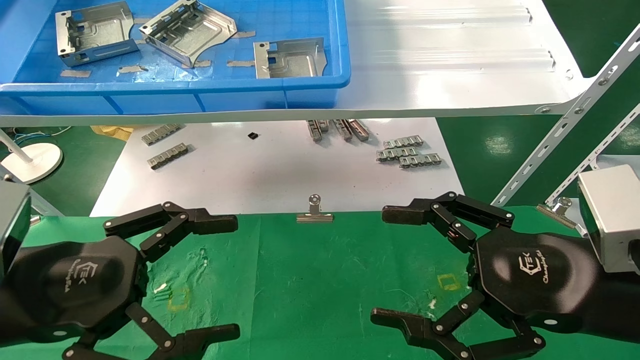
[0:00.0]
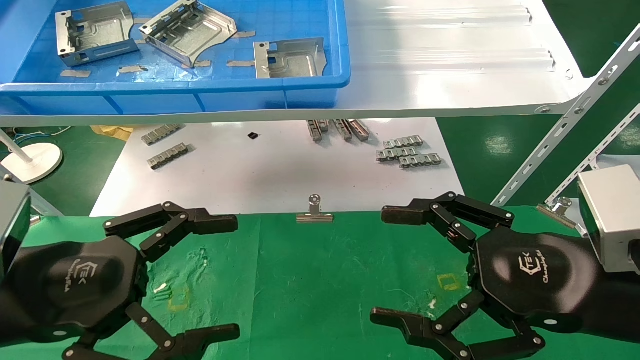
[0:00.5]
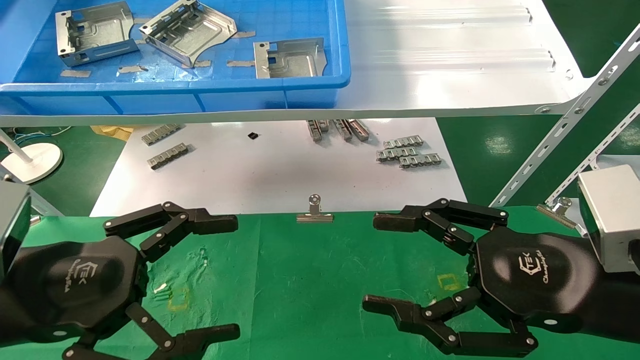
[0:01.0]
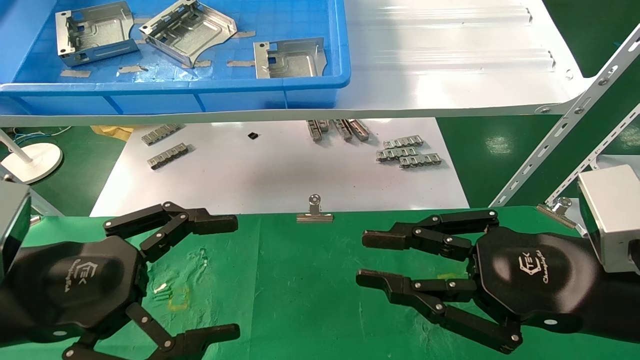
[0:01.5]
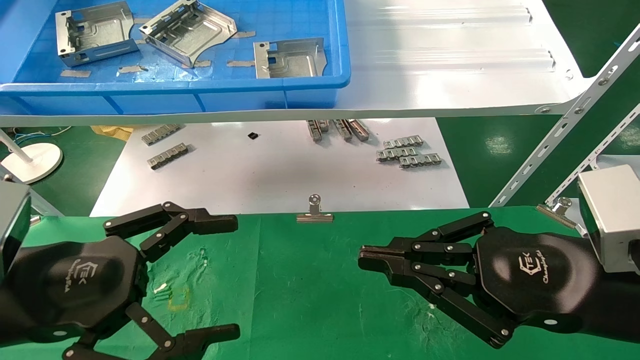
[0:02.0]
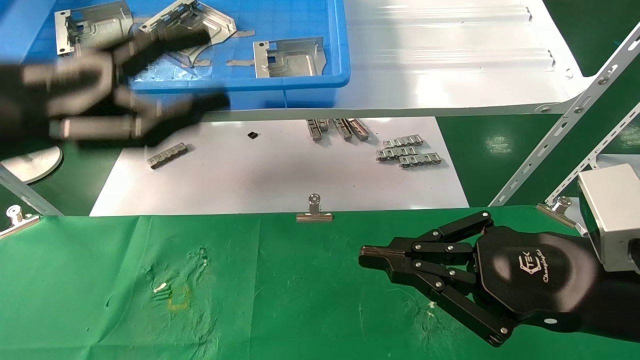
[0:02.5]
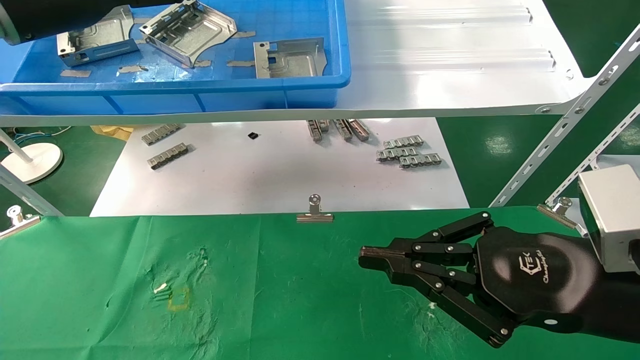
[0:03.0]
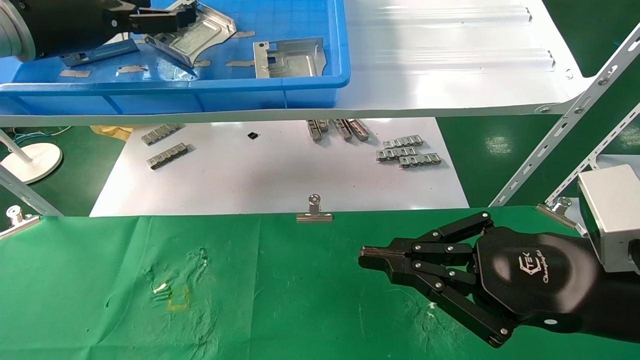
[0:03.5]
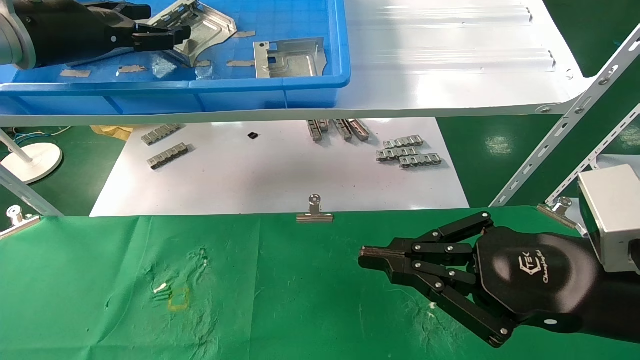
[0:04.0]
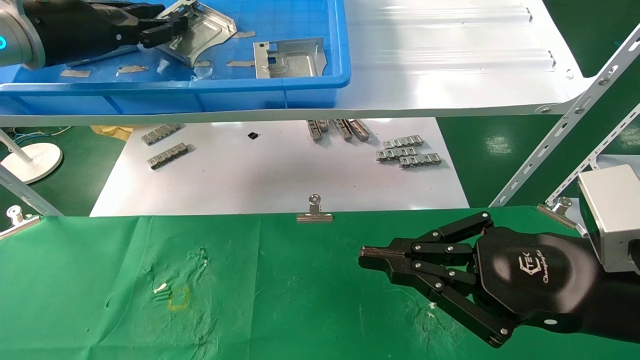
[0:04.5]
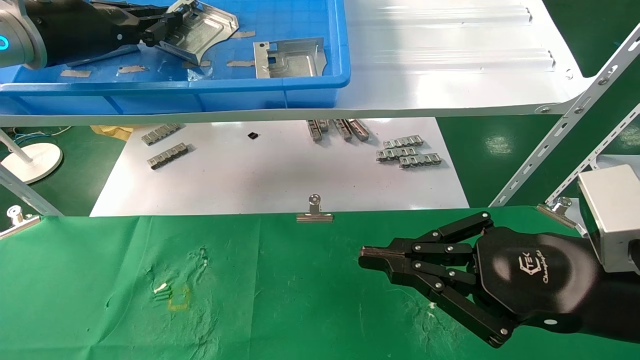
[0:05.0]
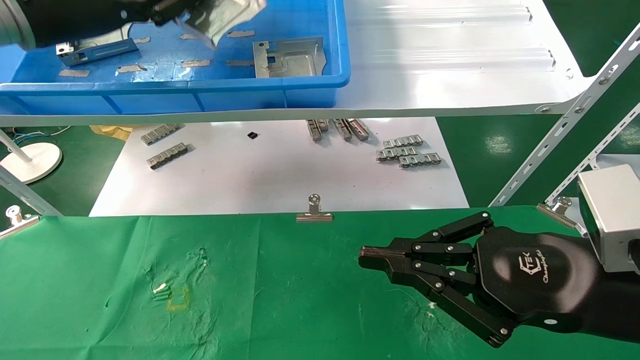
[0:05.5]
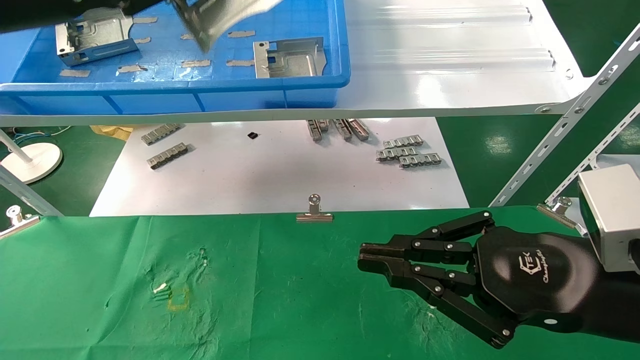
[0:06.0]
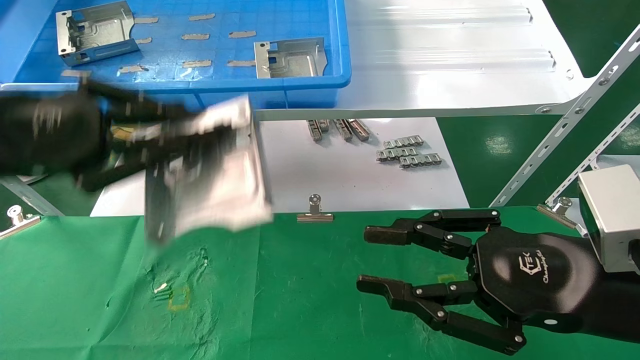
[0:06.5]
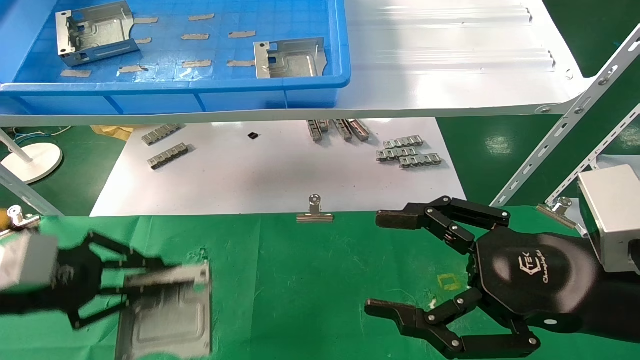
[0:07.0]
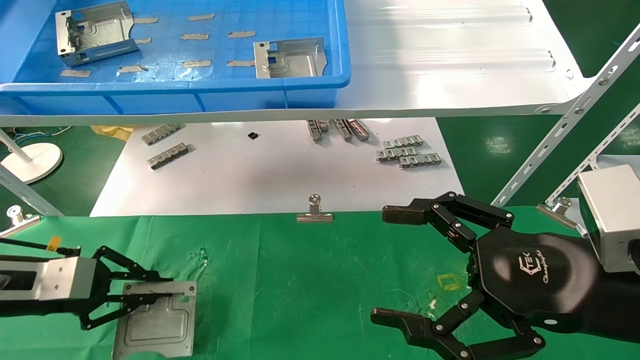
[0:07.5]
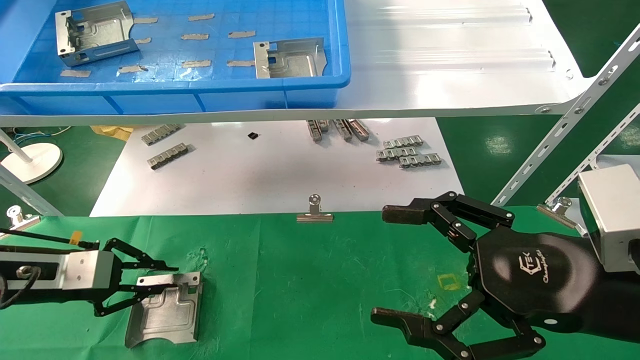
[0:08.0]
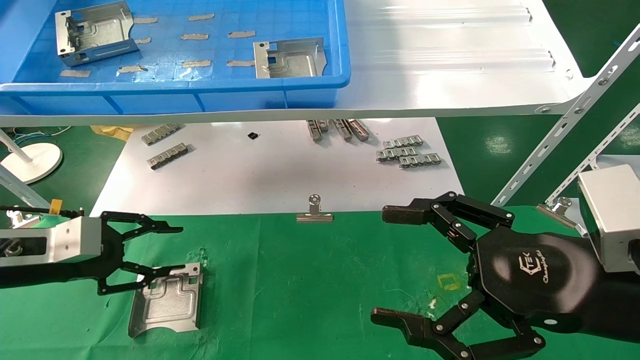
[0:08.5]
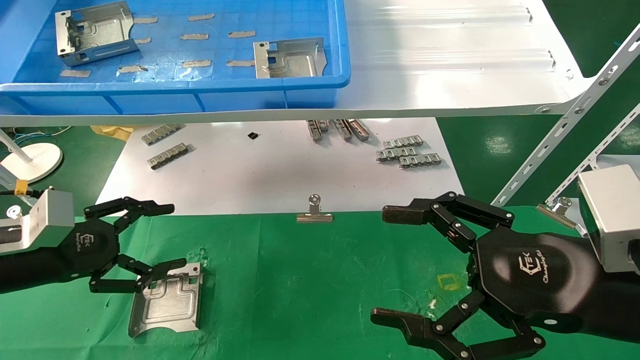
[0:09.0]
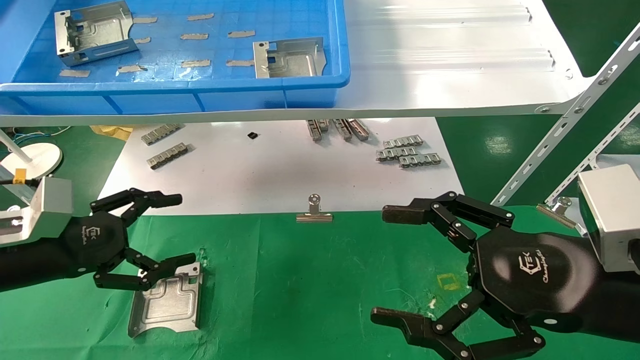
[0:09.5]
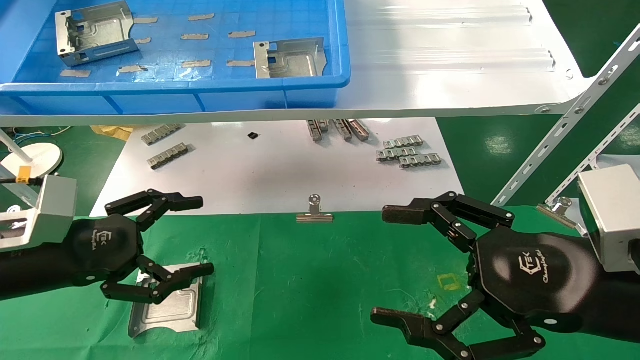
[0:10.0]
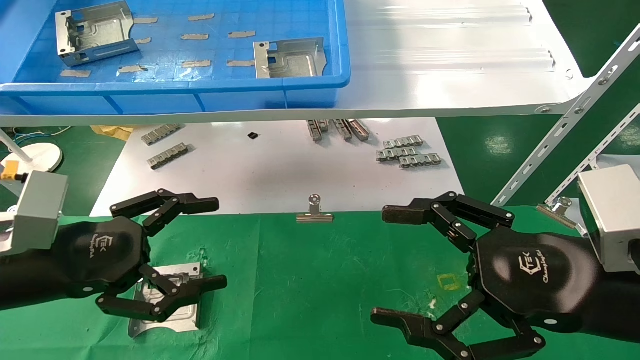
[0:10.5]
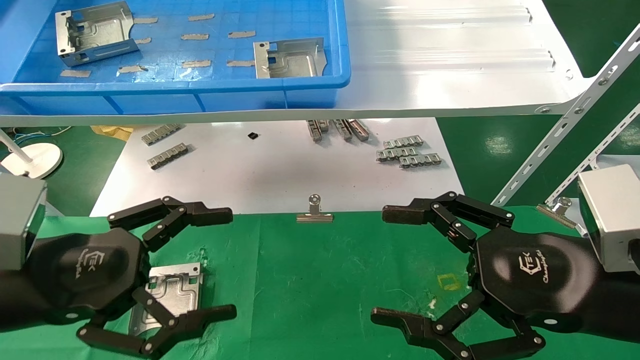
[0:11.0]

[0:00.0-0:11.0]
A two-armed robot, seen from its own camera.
Task of the whole recording: use the mechanical arm to pick up the parts and place them on the table.
Step, 0:01.5 to 0:04.0: Pick up the hard drive bracket from the feeding area.
Step, 0:04.5 to 0:07.0: Place the hard drive bracket into the box.
0:00.0 to 0:02.0: The right gripper closes its fingers.
0:02.0 to 0:03.5: The left gripper shifts about 30 cm forward and upward.
0:03.5 to 0:05.5: The left gripper closes its fingers.
0:05.5 to 0:07.5: The right gripper opens up. Meanwhile the left gripper goes about 30 cm downward.
0:07.5 to 0:09.0: The left gripper opens up.
0:09.0 to 0:11.0: The left gripper is displaced to the right and backward by some 15 cm.

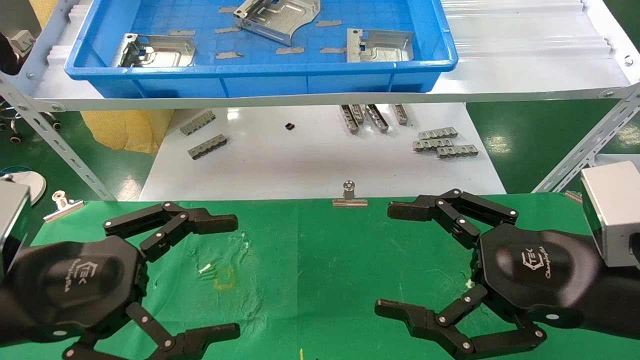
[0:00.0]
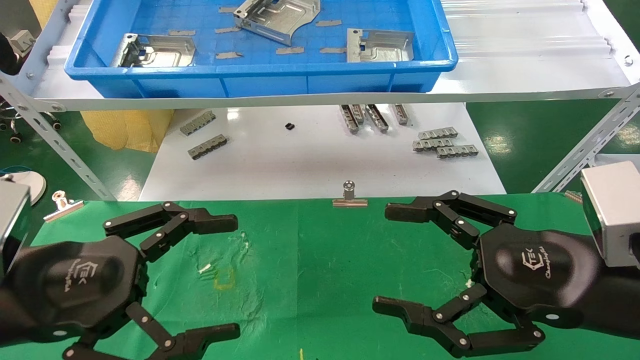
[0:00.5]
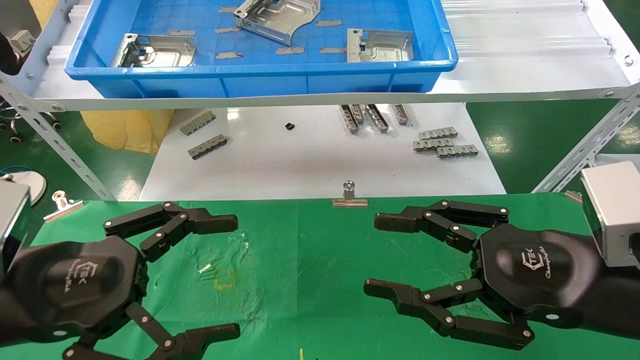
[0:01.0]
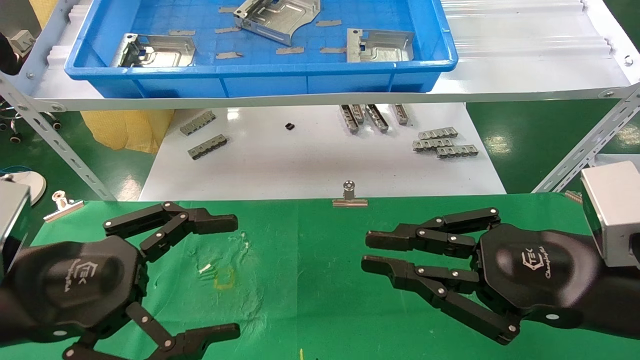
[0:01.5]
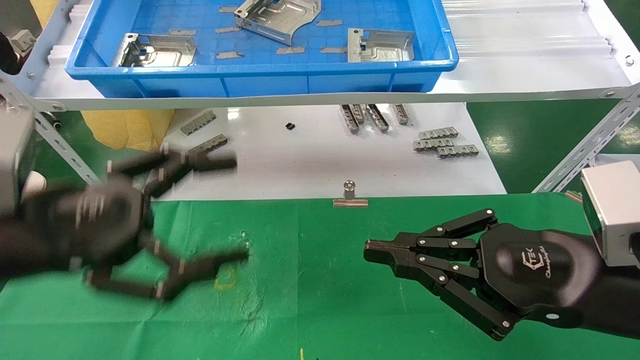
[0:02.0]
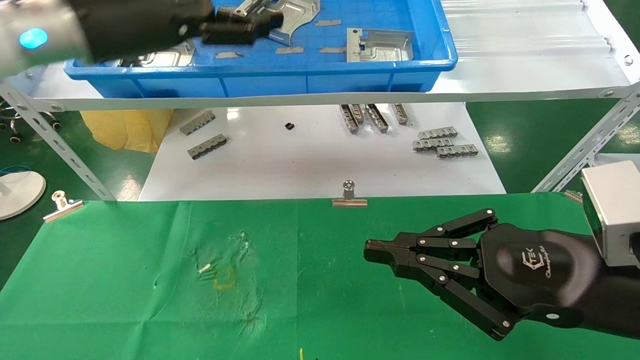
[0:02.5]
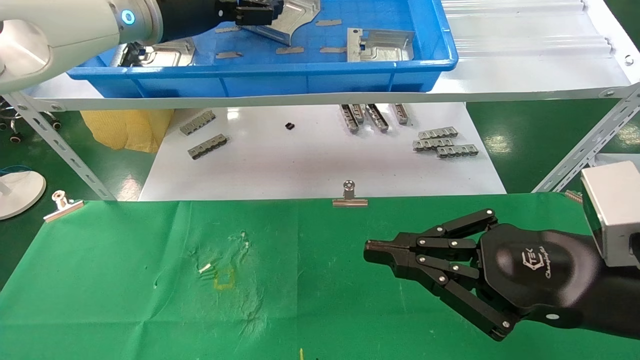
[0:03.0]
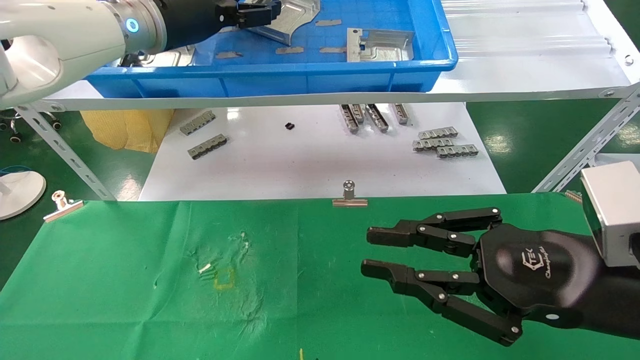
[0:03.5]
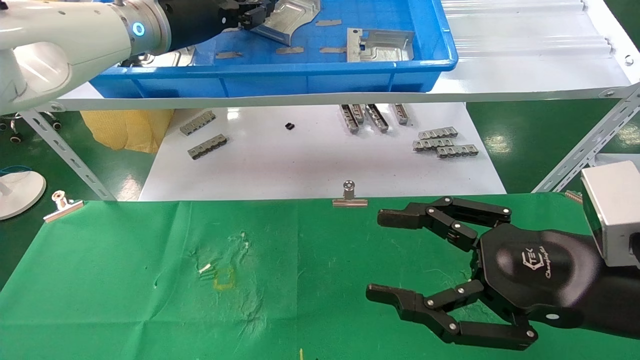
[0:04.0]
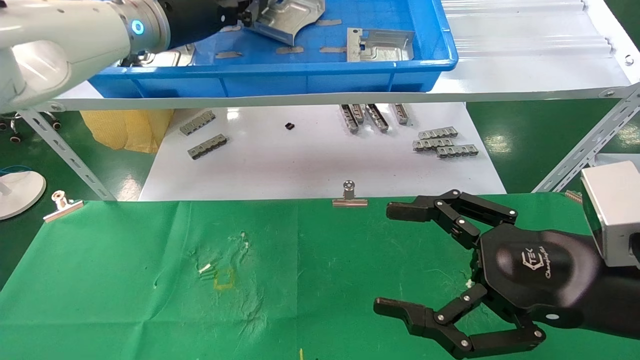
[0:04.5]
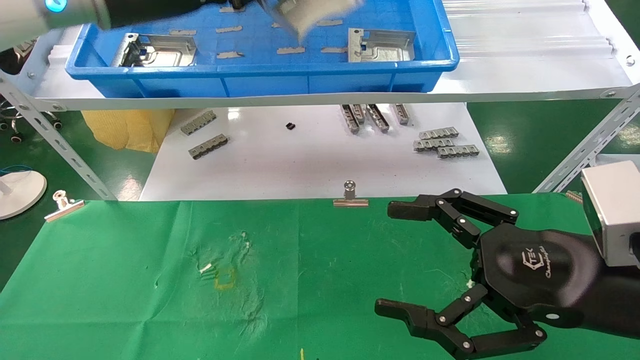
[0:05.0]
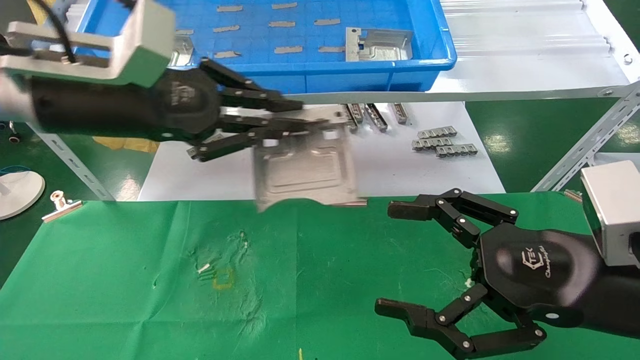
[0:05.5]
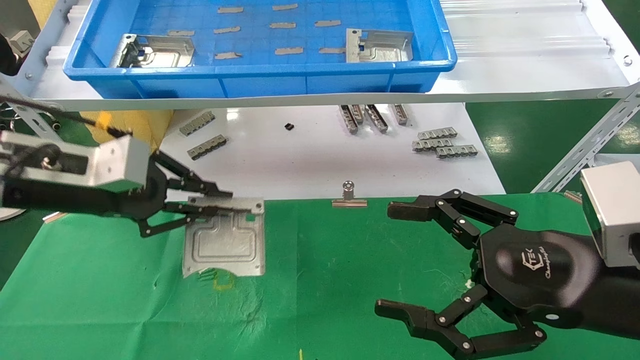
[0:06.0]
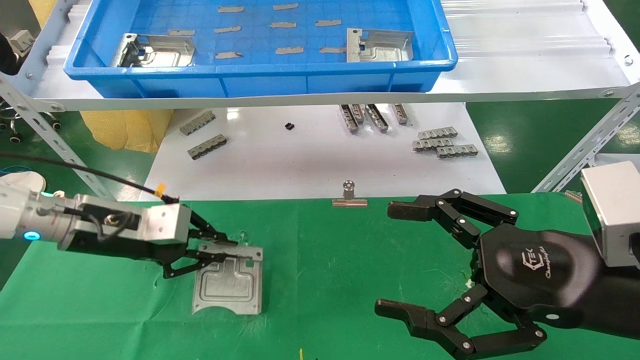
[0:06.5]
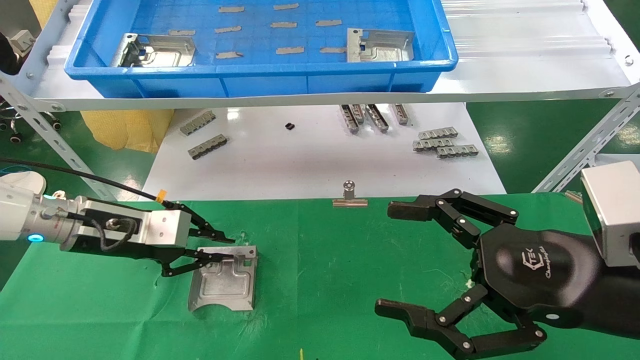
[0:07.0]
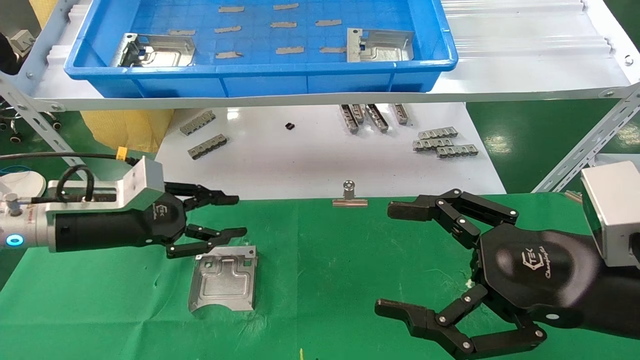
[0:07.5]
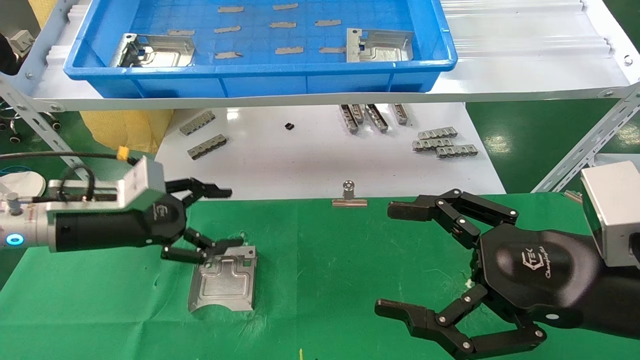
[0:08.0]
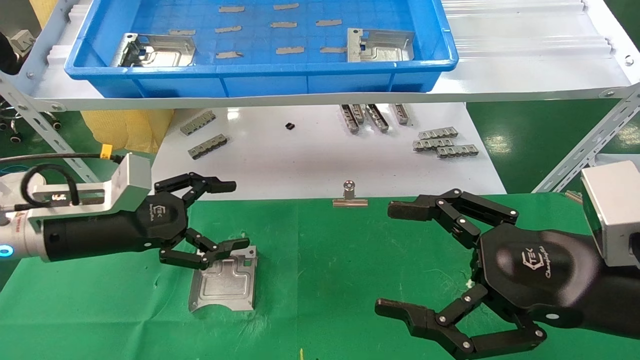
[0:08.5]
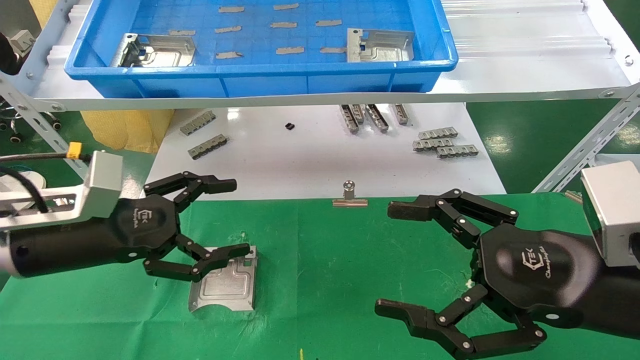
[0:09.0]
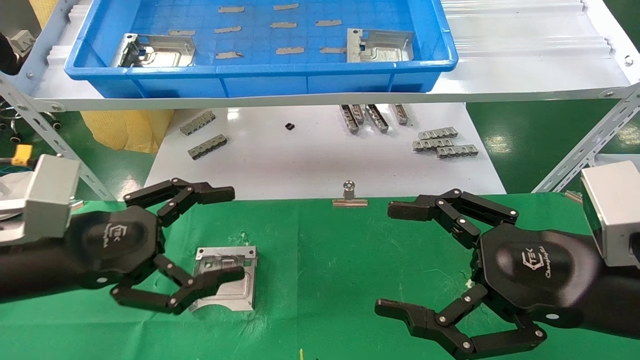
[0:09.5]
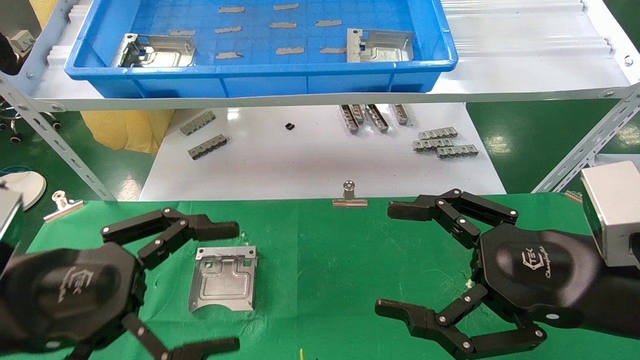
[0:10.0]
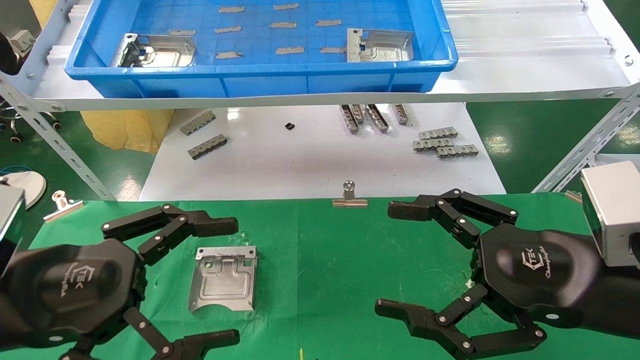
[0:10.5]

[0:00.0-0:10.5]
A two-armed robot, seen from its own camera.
Task of the whole recording: use the mechanical arm to pick up the parts and place them on the table.
Step, 0:02.0 to 0:04.0: Pick up the hard drive bracket from the feeding area.
Step, 0:04.5 to 0:07.0: Place the hard drive bracket into the box.
0:00.0 to 0:02.0: The left gripper travels upward by some 5 cm, while the right gripper closes its fingers.
0:02.0 to 0:04.0: The left gripper goes roughly 25 cm forward and upward, and closes its fingers; the right gripper opens.
0:04.0 to 0:06.5: The right gripper opens; the left gripper travels downward and to the left by approximately 25 cm, and closes up.
0:06.5 to 0:08.5: The left gripper opens up.
0:08.5 to 0:10.5: The left gripper travels backward by approximately 15 cm.
